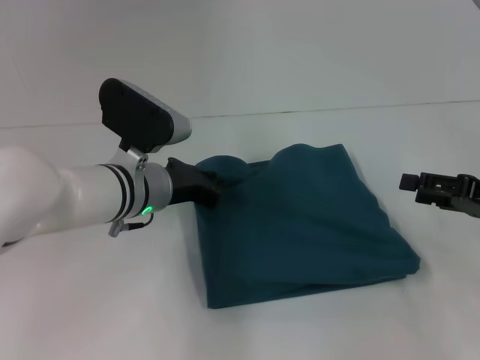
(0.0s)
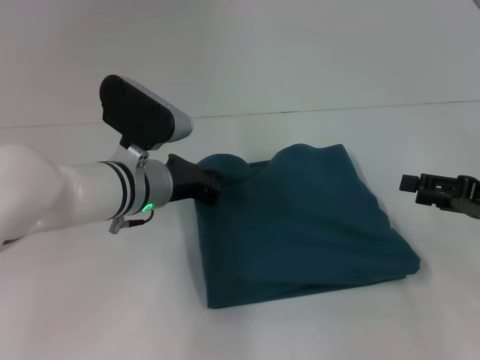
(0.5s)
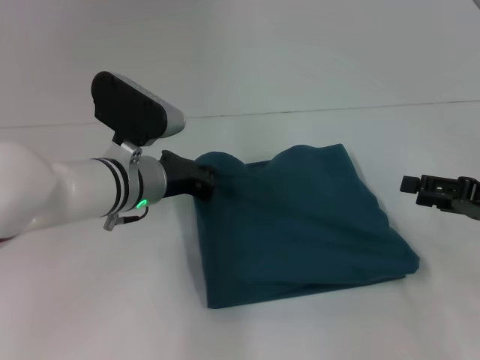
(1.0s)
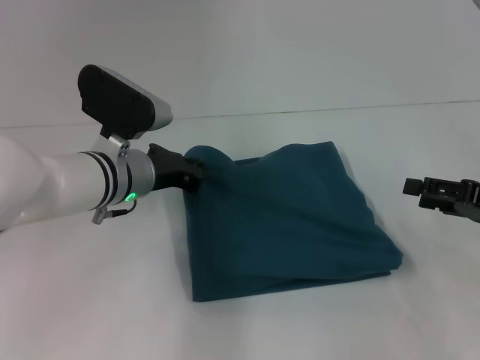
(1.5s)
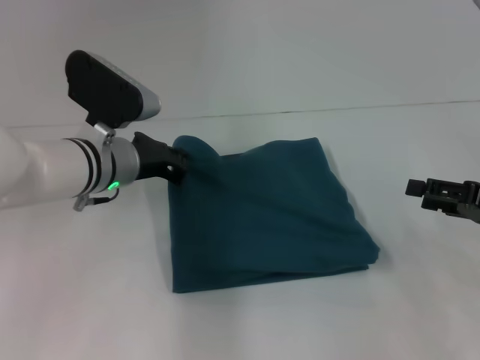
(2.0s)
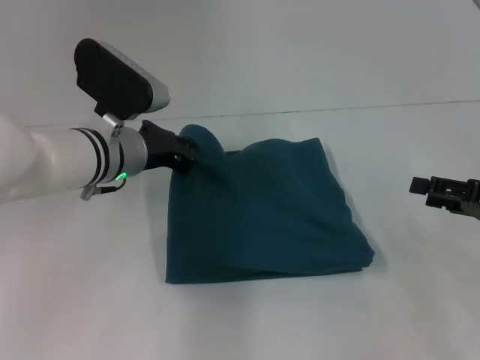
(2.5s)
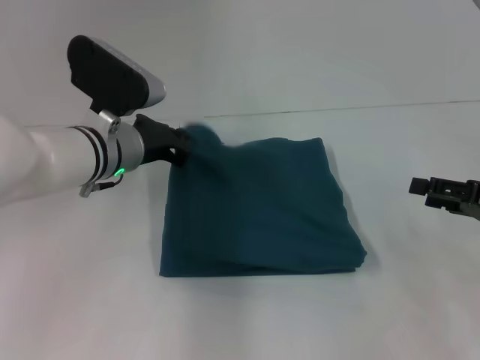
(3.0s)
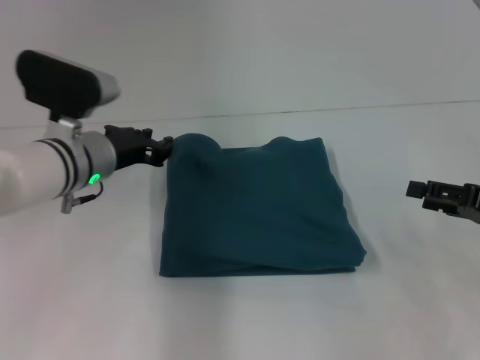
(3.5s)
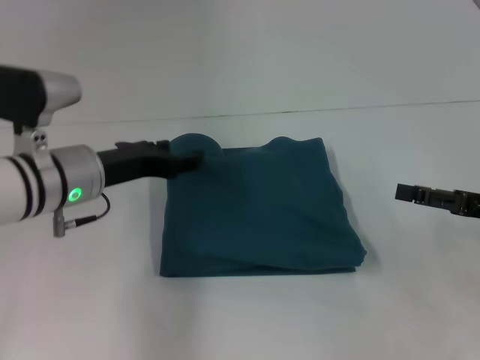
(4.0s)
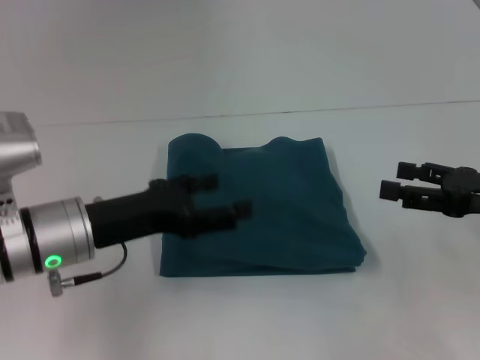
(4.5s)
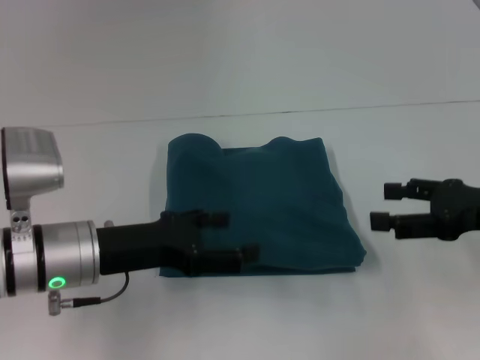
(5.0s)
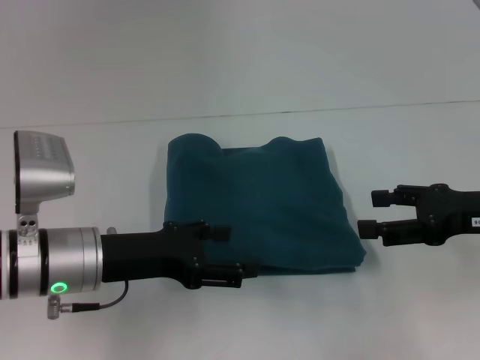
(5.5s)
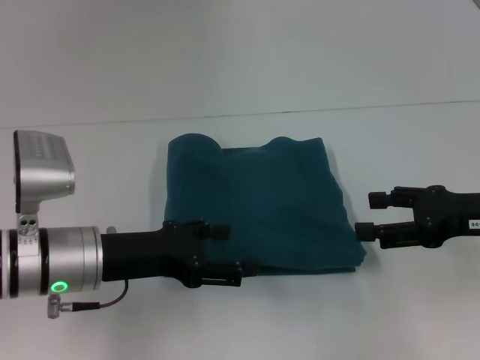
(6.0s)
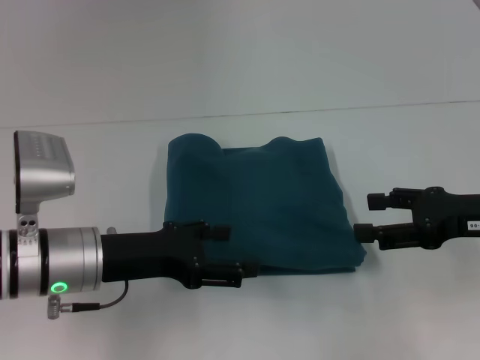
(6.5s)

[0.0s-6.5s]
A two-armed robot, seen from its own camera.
0.0s to 2.0s: The grippers move only a little.
2.0s to 4.5s: The left gripper shifts approximately 10 cm backward, and opens up.
4.5s to 6.5s: The grippers stay close to where they were, moving slightly.
